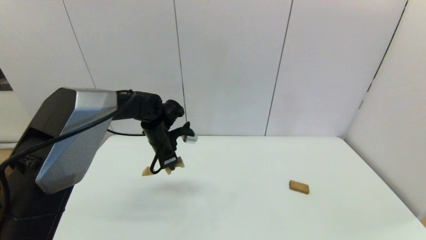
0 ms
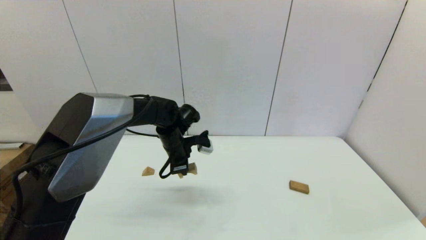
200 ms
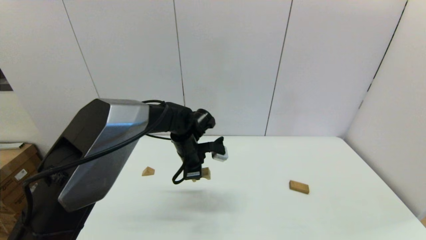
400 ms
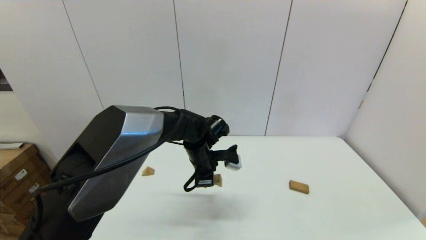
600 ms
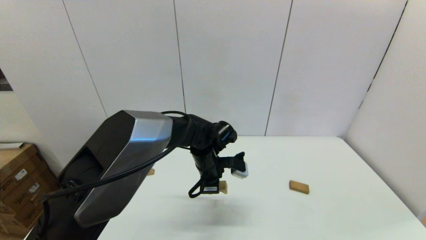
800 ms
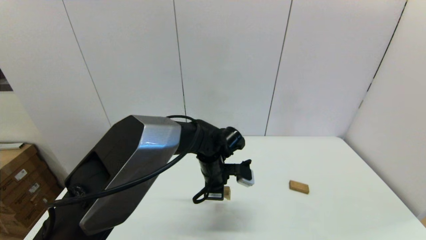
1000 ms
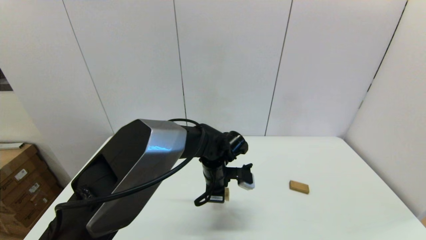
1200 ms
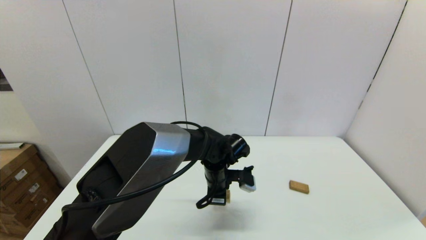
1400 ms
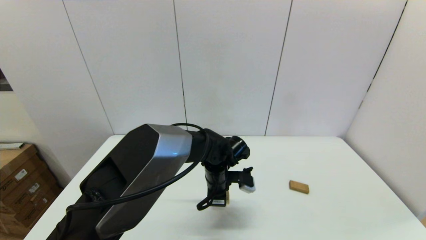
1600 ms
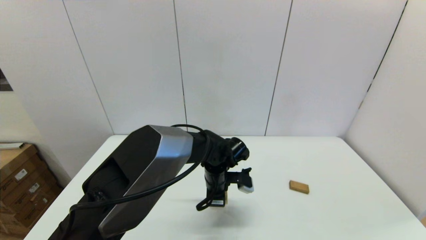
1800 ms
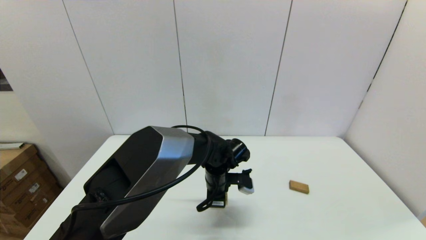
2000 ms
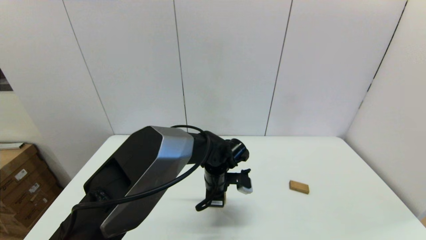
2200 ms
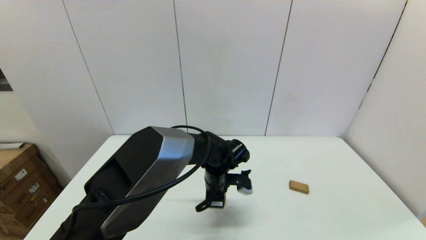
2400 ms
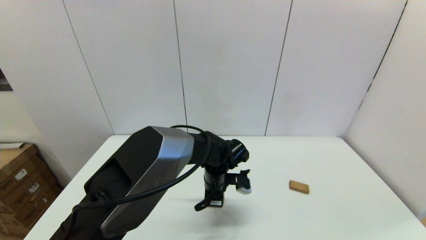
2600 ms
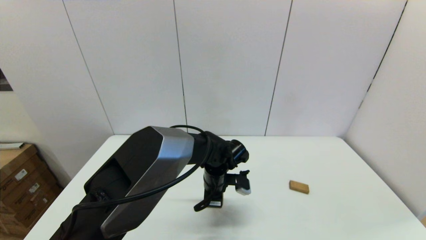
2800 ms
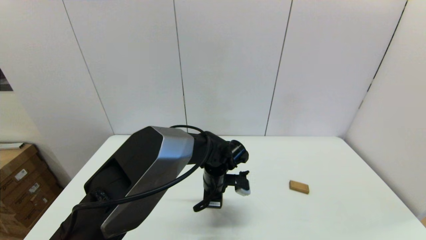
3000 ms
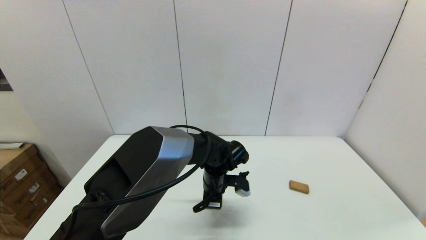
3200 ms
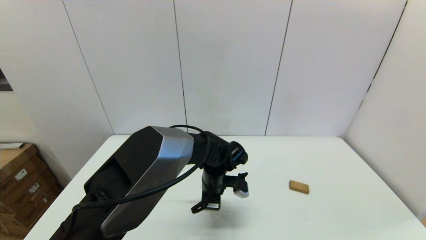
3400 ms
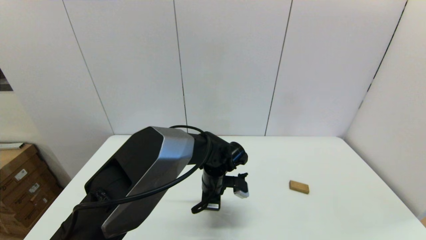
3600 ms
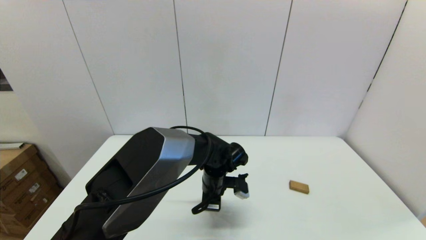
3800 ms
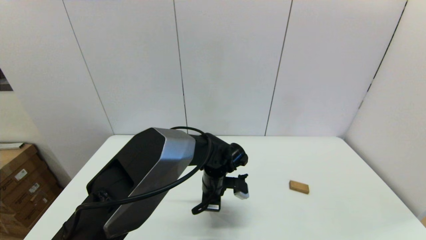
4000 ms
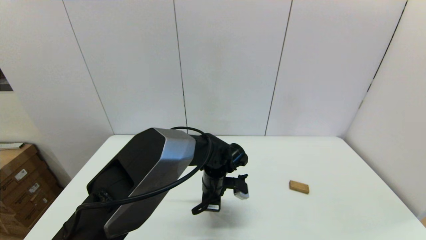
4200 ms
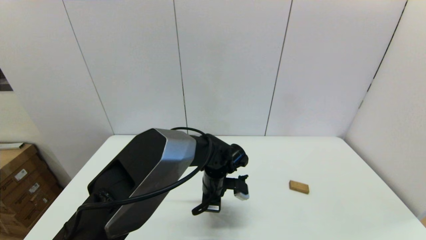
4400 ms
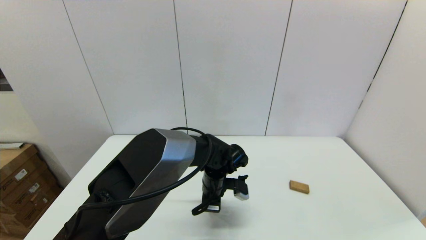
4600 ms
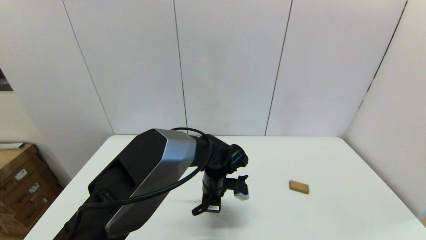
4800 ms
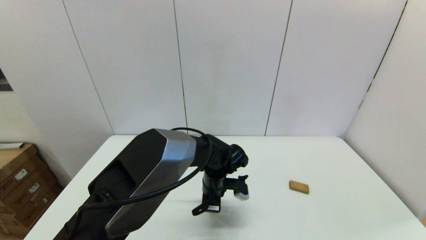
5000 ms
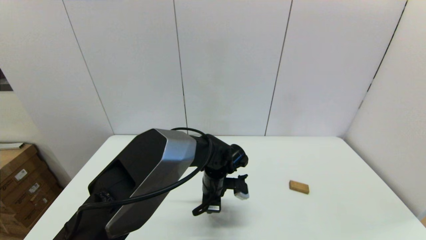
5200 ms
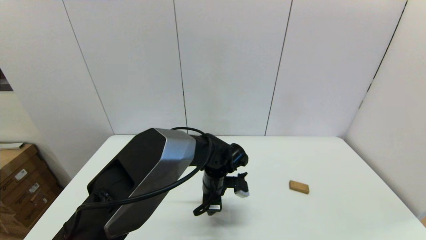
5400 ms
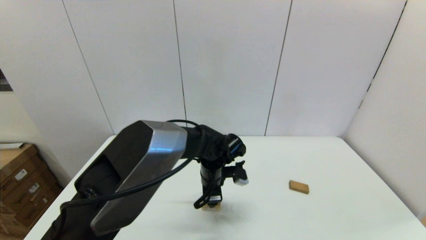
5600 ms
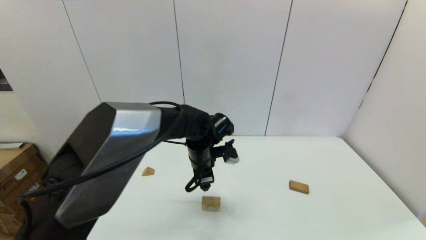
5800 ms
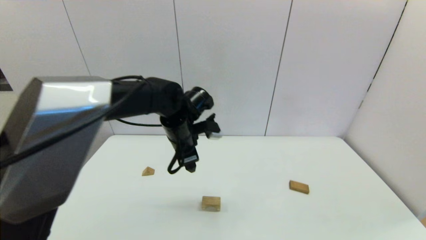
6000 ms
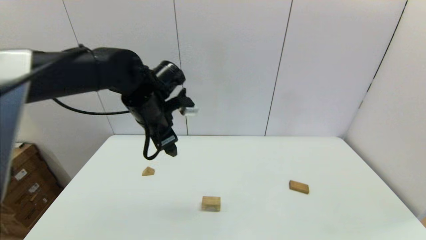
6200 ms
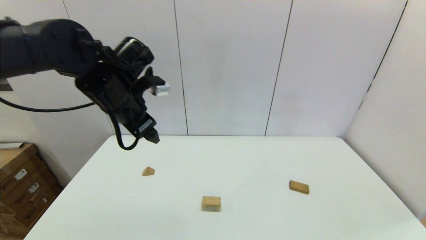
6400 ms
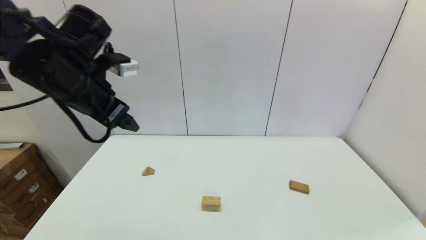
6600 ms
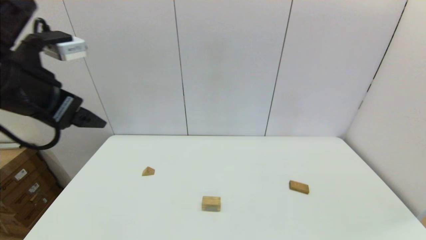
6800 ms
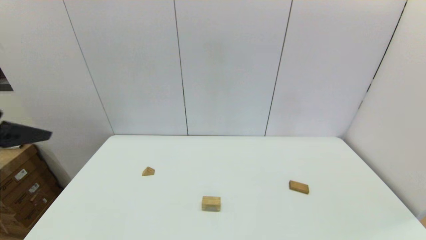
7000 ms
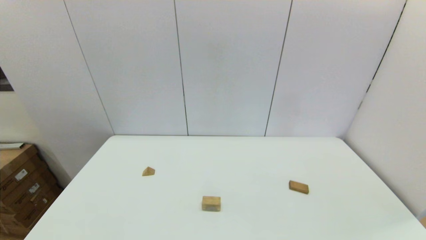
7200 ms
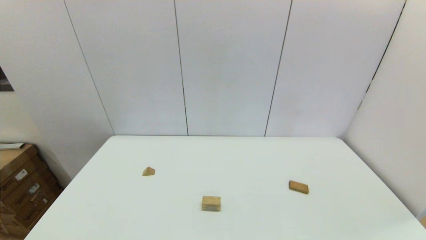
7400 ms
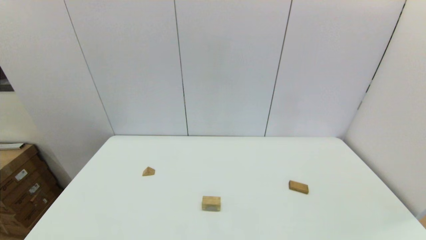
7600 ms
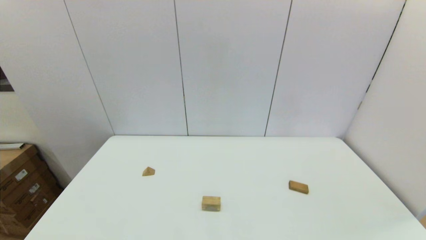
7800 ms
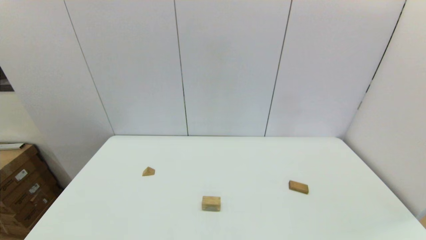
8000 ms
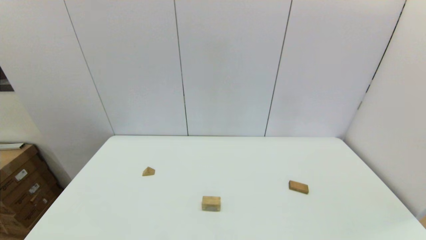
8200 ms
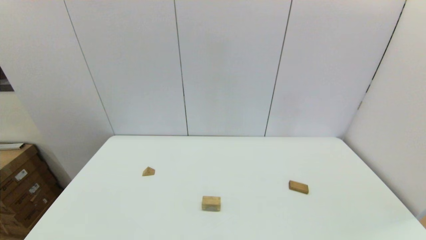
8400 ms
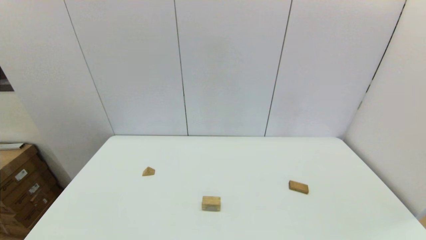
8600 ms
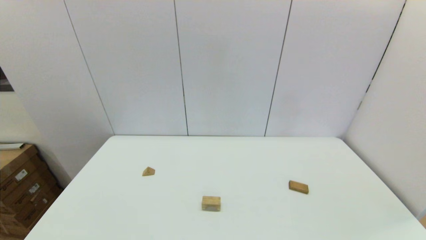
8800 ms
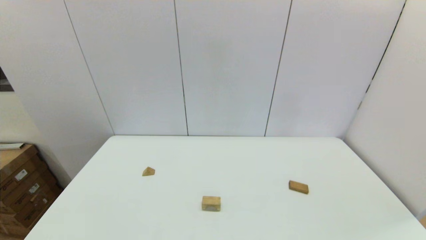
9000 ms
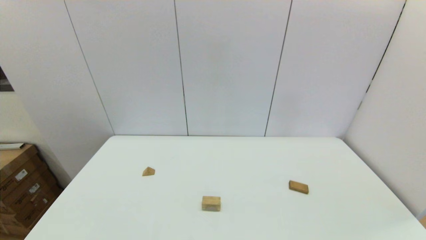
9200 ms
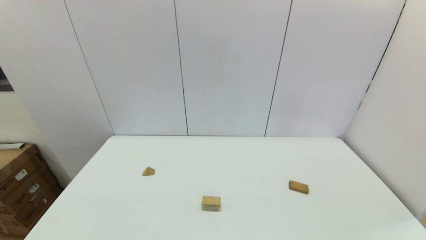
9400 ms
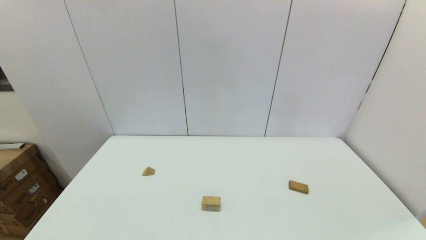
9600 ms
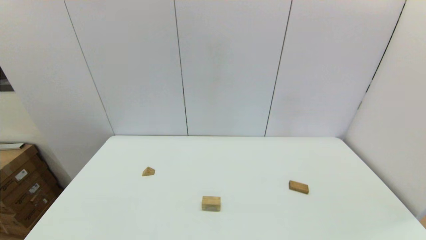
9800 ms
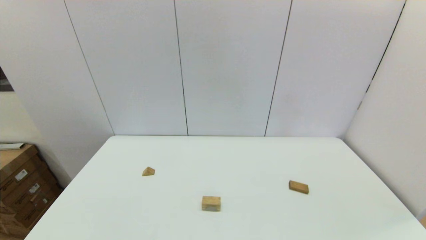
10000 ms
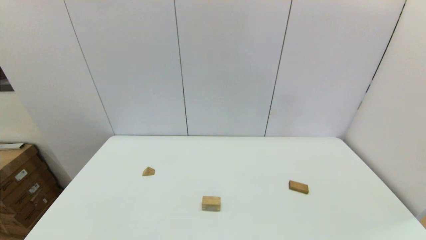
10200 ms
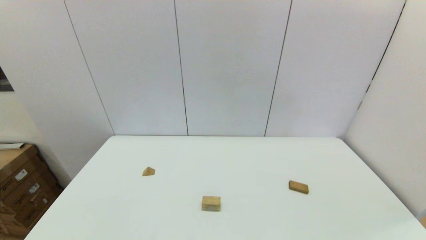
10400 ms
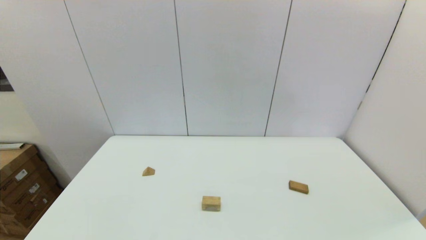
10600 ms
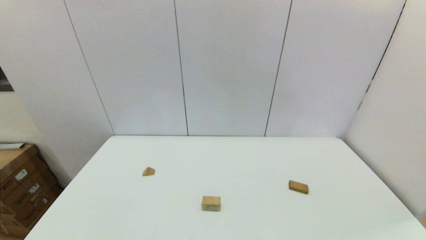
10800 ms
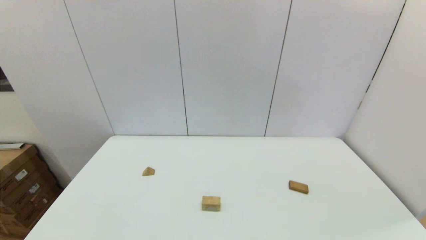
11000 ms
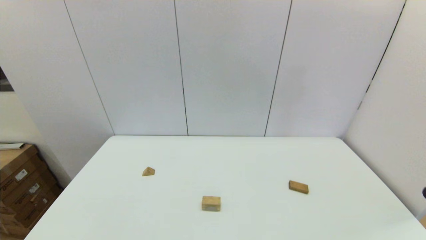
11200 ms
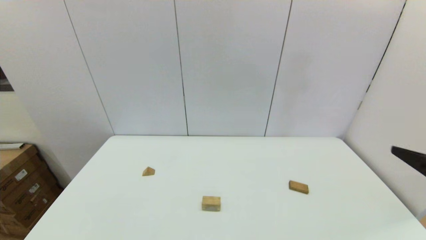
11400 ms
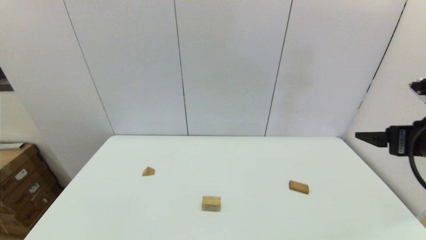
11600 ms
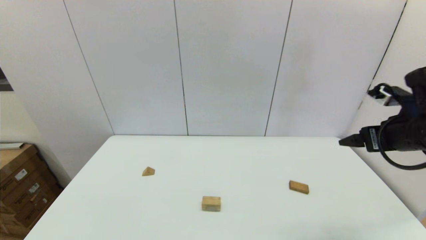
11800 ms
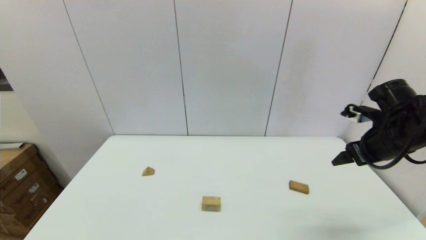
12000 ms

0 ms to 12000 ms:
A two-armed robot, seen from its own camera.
Task of the whole recording: place the arched building blocks in the center of the table, set up the rectangular building blocks, and then set up the triangular building blocks.
Step, 0 ms to 5200 ms: Place the arch-shaped block in the center of view with the left gripper.
0 ms to 1600 ms: The left gripper heads to the right, backward and downward, covering approximately 20 cm.
1600 ms to 3000 ms: The grippers move only a little.
3000 ms to 4400 ms: Both grippers stay put.
4400 ms to 6000 ms: The left gripper moves upward and to the left, some 15 cm, and opens up.
6000 ms to 7600 ms: The left gripper goes about 50 cm backward and to the left.
10400 ms to 12000 ms: The right gripper moves forward, roughly 30 cm.

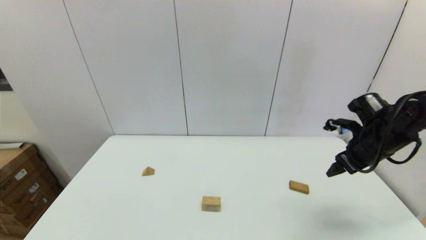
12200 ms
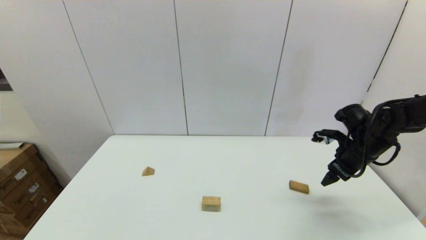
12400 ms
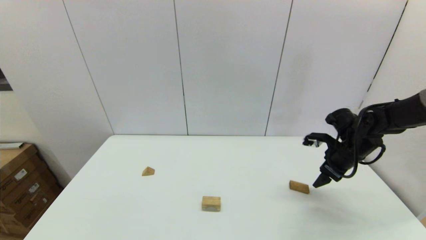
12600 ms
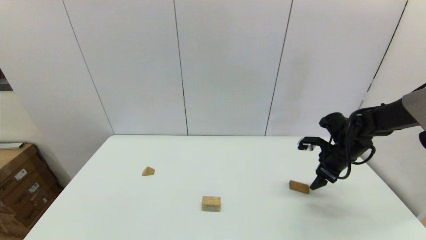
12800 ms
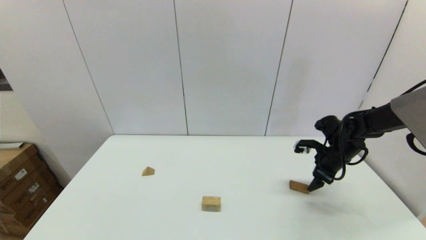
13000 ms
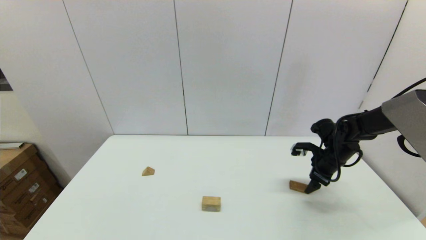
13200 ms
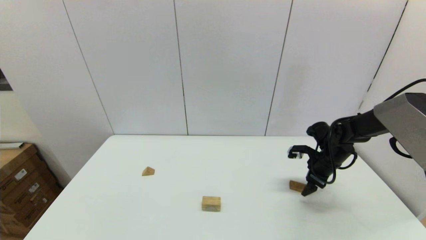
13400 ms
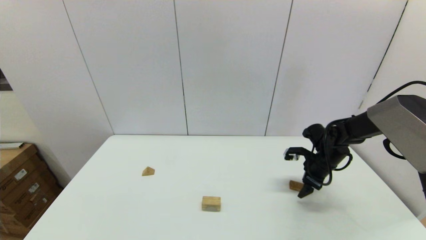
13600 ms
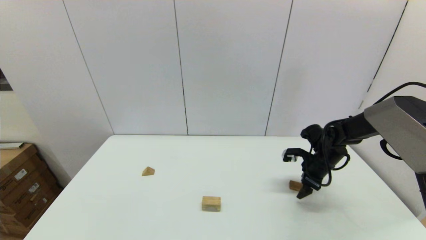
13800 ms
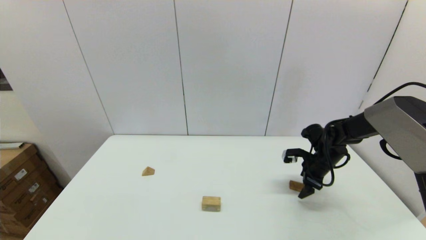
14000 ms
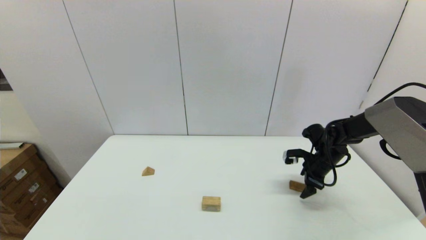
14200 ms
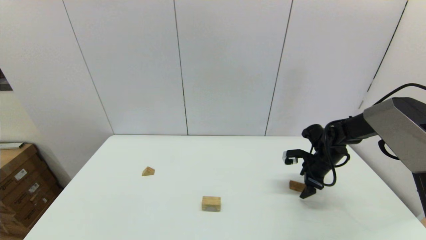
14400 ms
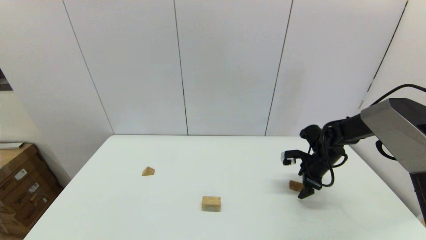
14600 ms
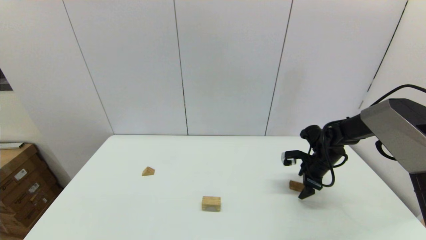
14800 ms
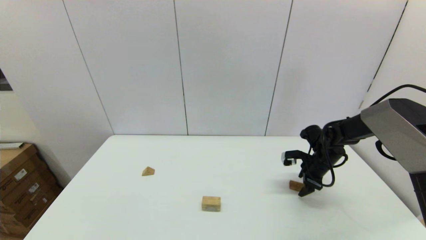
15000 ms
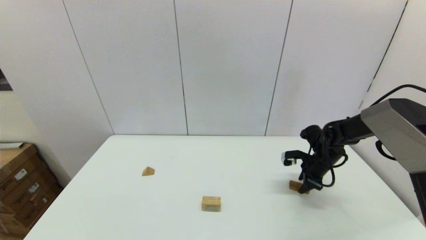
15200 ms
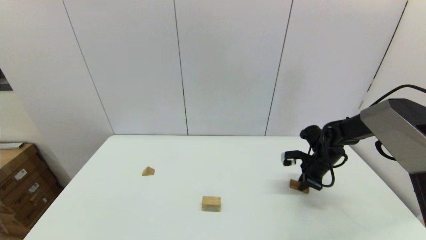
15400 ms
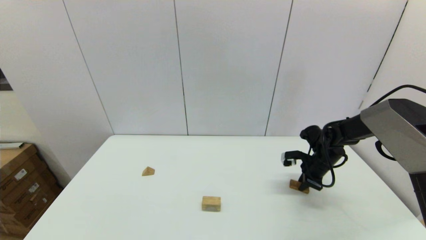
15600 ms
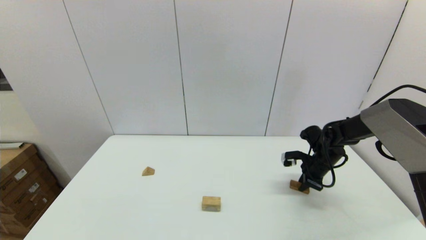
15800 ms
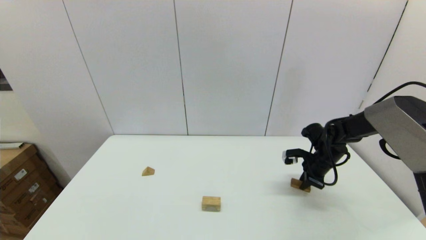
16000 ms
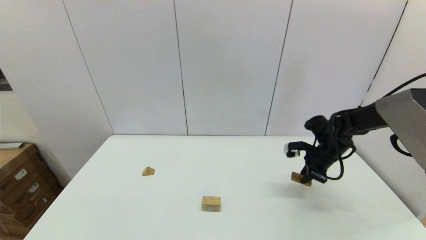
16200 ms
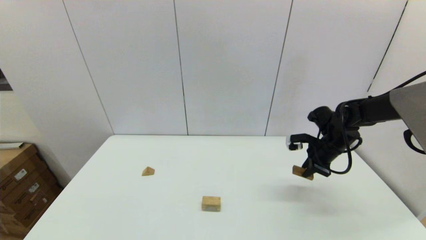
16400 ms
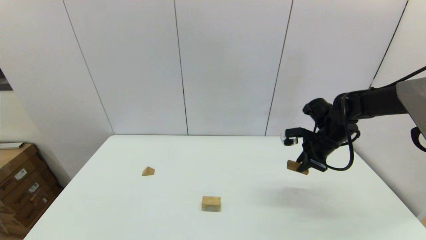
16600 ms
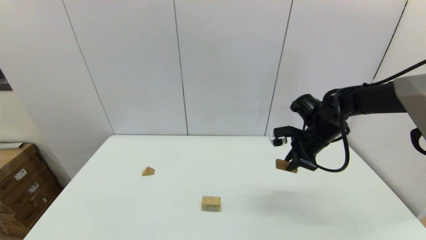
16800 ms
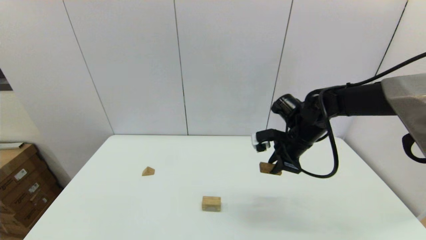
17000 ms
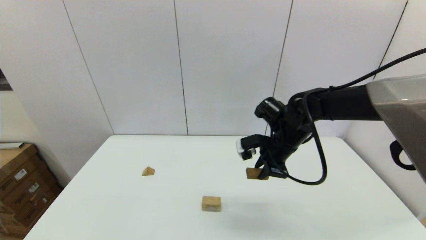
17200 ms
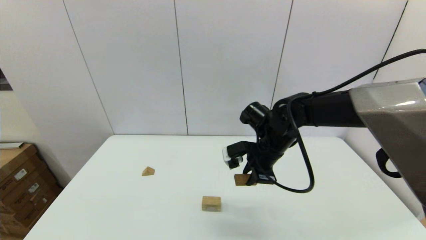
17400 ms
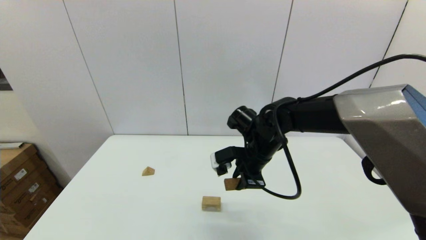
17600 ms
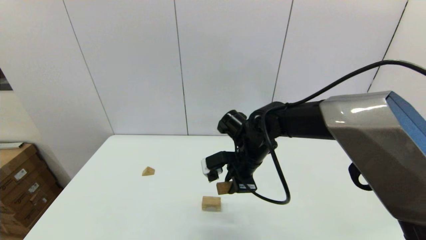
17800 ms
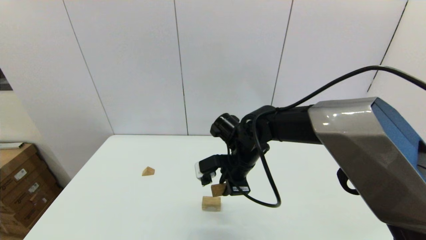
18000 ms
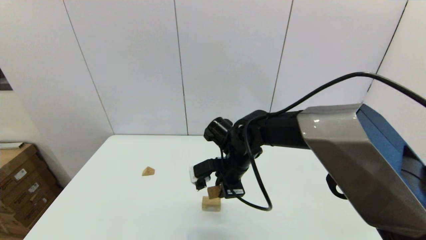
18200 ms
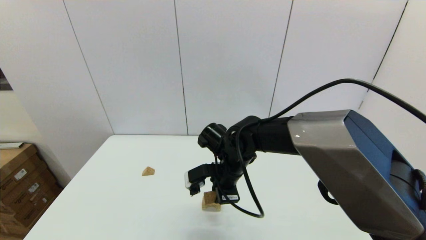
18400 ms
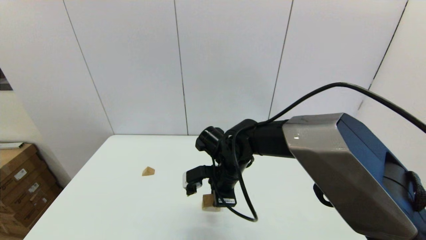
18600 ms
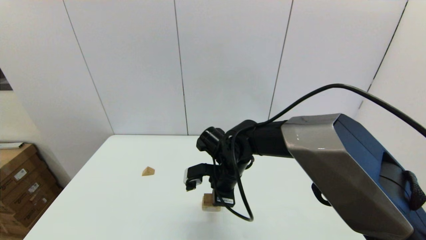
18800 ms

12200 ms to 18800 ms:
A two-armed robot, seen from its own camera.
Task of the whole recording: place the arched building blocks in the center of the table, set up the rectangular building blocks, and then set up the triangular building blocks.
Step, 12200 ms to 15400 ms: Grasp the box-shaped block with the right gripper.
12200 ms to 13800 ms: The right gripper is displaced downward and forward by roughly 15 cm.
13800 ms to 15400 ms: The right gripper closes.
15400 ms to 17200 ms: The right gripper heads to the left and upward, covering approximately 20 cm.
17200 ms to 18800 ms: The right gripper moves to the left and downward, approximately 15 cm.
